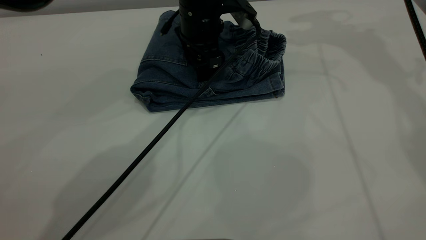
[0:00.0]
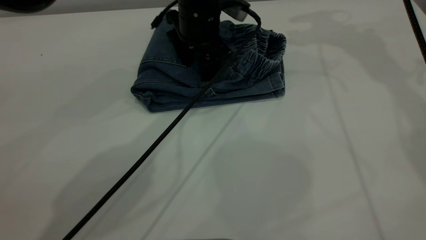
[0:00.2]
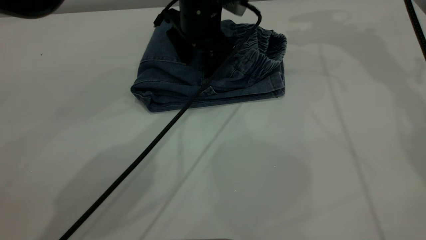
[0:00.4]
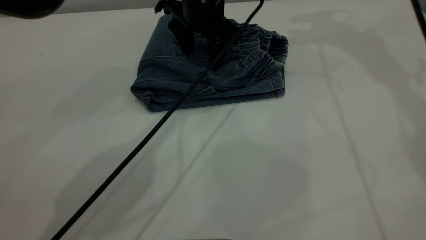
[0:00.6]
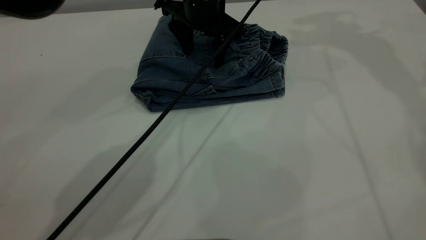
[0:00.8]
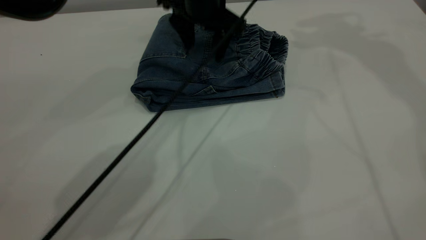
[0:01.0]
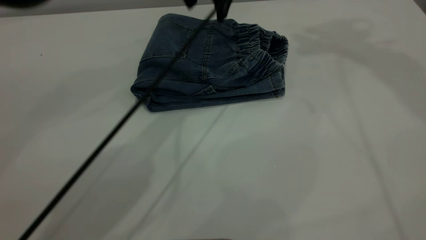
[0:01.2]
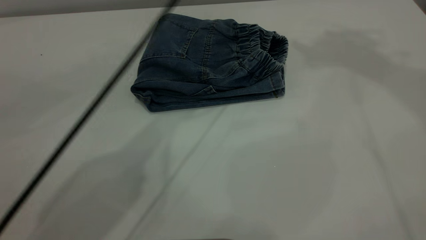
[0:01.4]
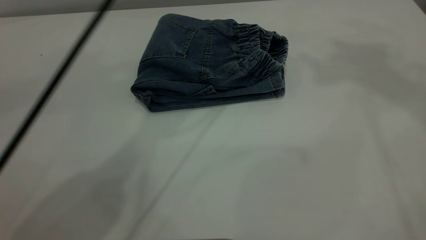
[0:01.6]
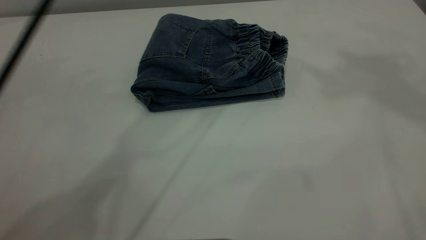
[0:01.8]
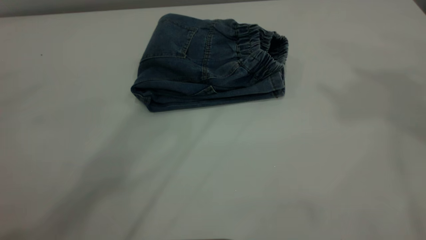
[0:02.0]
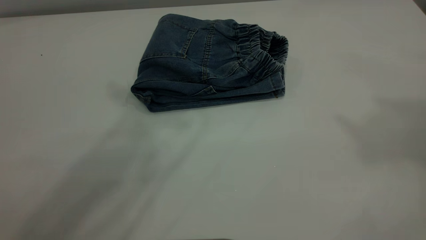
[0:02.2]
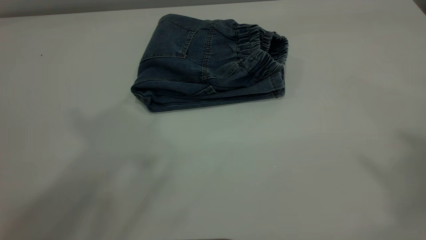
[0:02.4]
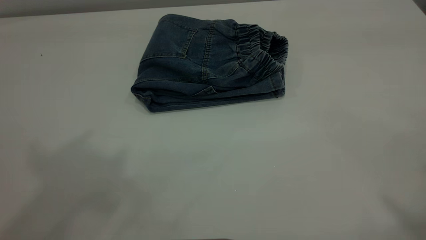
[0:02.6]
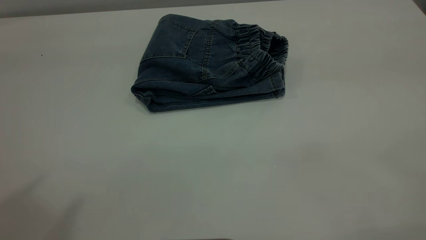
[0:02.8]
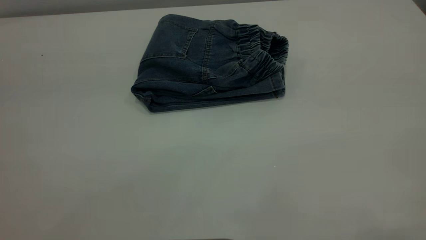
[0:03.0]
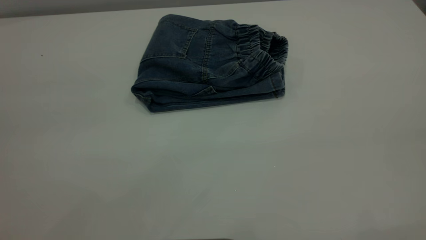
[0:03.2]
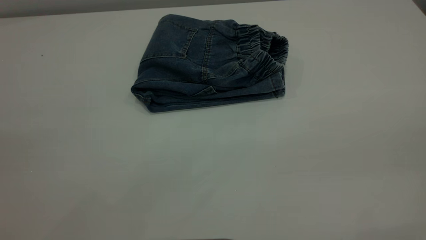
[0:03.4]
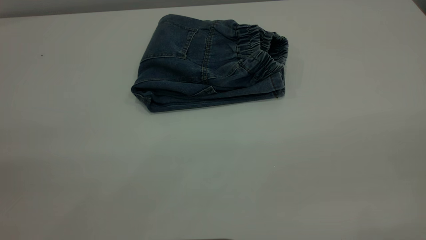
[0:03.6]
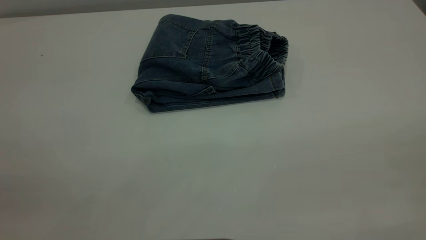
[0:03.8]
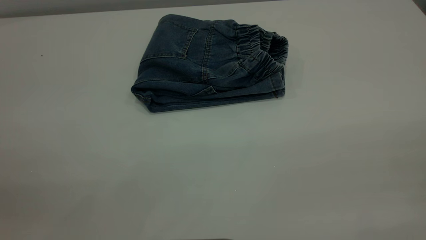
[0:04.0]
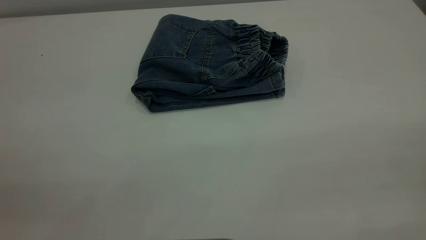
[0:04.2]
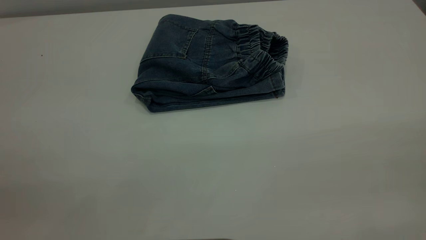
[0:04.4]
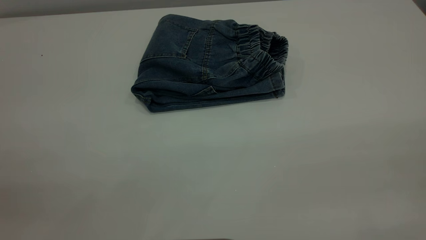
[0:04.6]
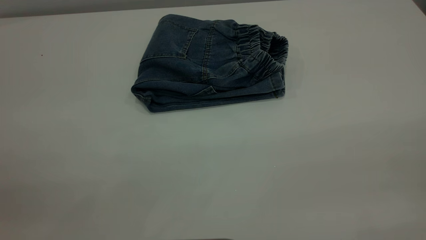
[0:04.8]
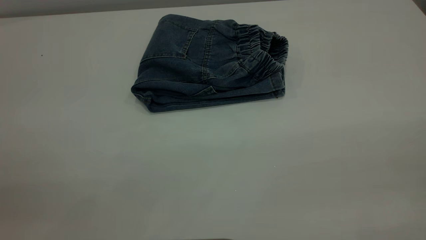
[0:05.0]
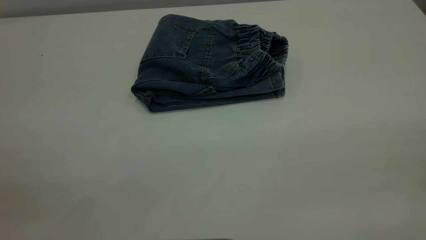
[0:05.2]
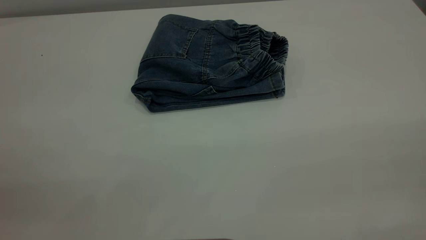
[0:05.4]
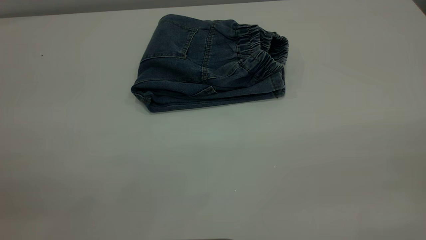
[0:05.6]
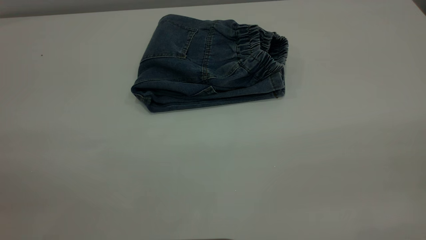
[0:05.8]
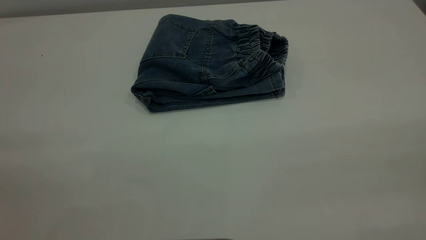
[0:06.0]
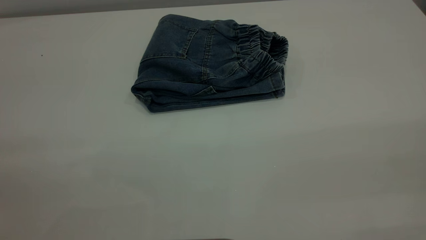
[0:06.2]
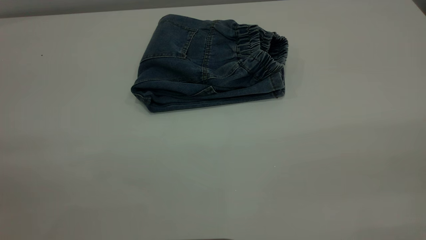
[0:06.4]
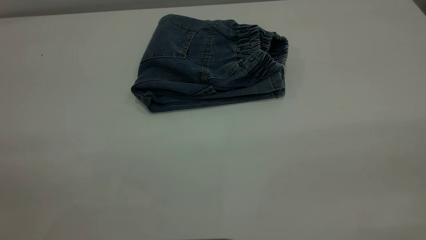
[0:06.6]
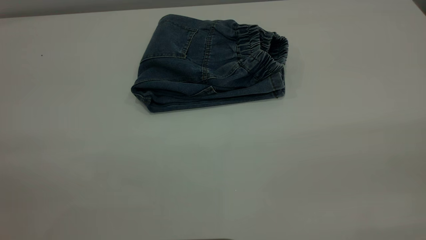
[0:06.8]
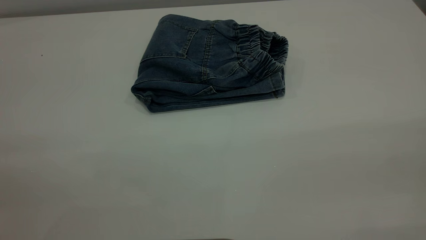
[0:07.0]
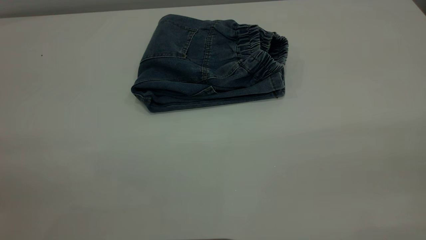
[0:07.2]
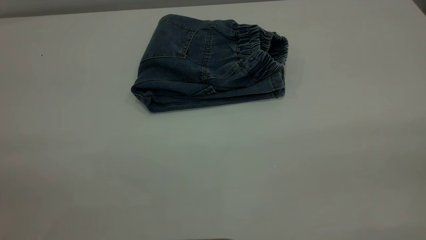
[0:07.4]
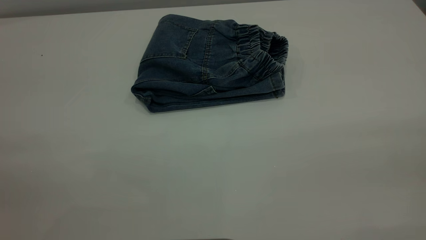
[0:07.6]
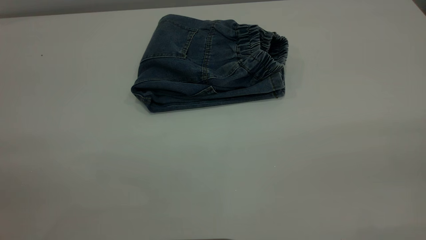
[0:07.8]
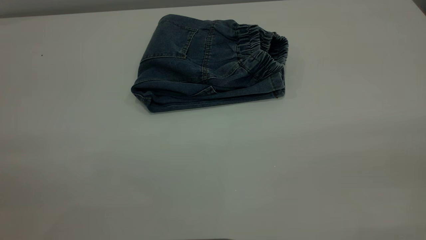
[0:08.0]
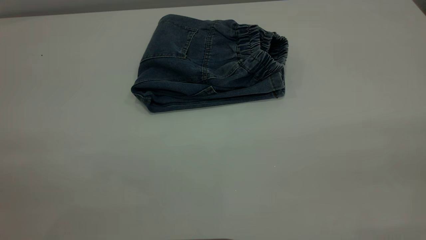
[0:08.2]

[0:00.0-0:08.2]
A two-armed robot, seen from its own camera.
0:00.0 to 0:01.6: The right gripper travels upward and backward by approximately 30 cm, while the left gripper moves upward, about 25 cm.
0:01.6 to 0:03.2: The left gripper goes some 50 cm backward and to the left.
